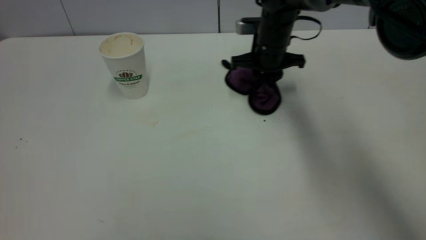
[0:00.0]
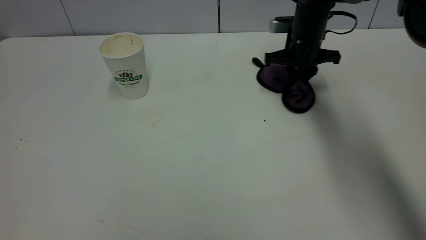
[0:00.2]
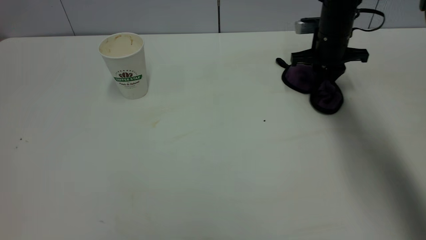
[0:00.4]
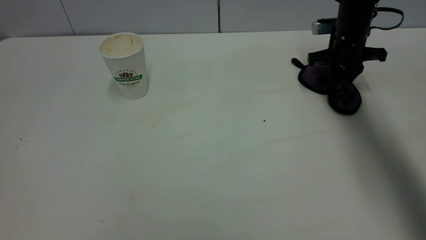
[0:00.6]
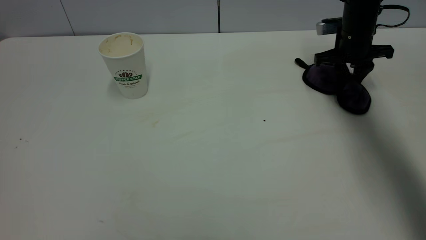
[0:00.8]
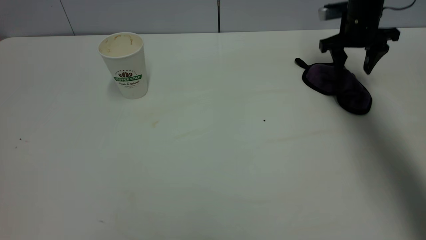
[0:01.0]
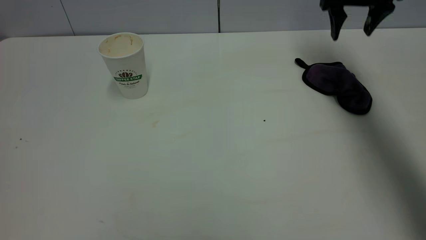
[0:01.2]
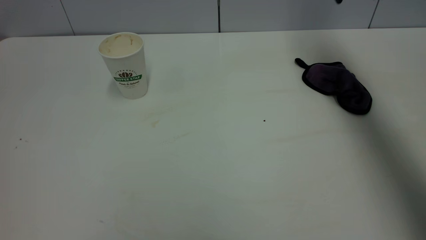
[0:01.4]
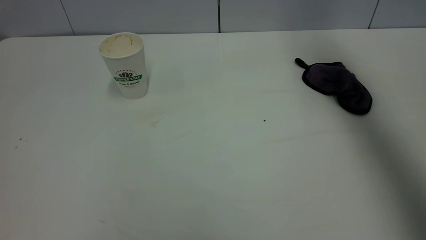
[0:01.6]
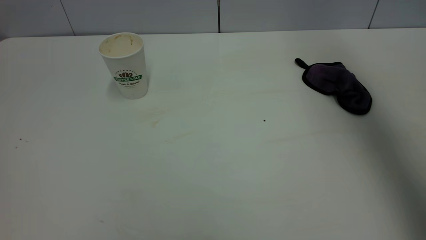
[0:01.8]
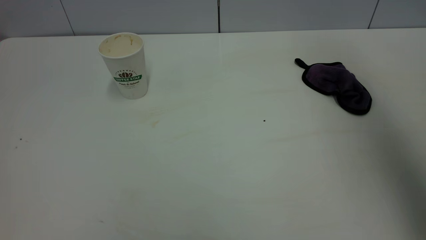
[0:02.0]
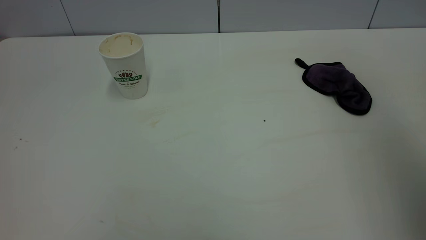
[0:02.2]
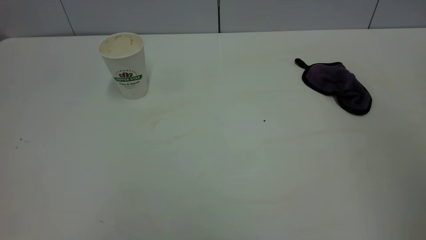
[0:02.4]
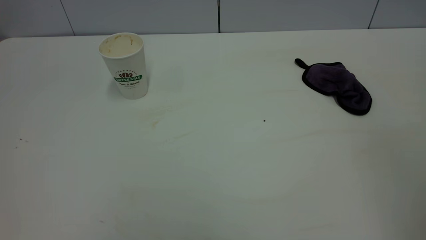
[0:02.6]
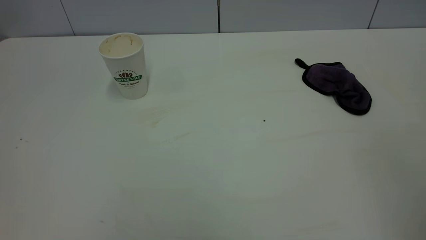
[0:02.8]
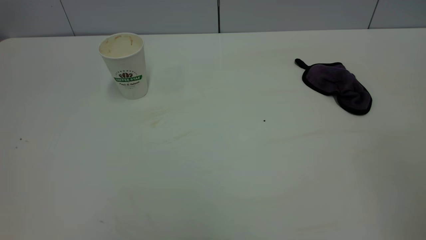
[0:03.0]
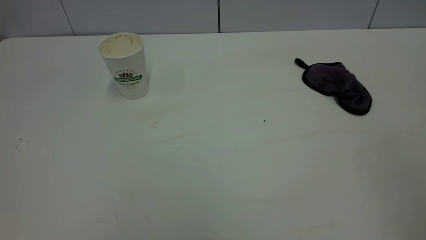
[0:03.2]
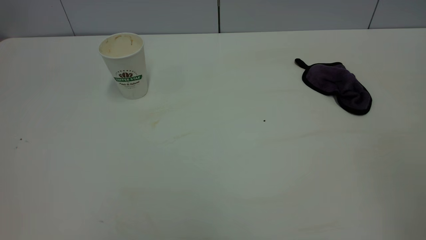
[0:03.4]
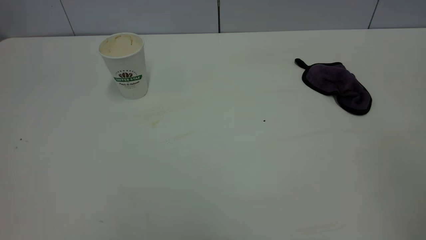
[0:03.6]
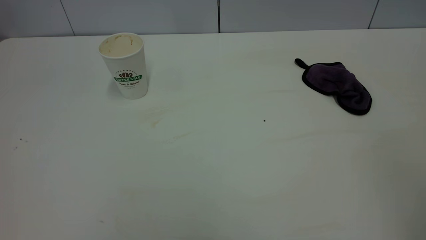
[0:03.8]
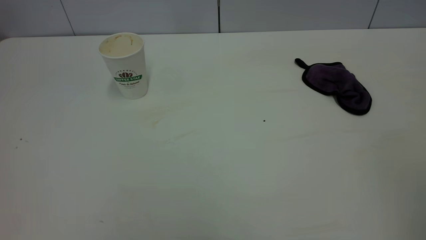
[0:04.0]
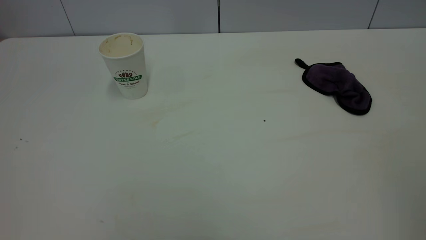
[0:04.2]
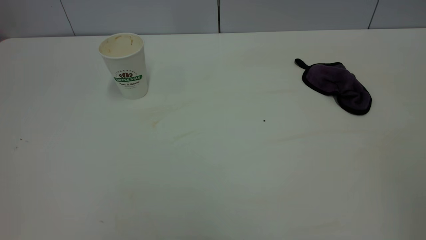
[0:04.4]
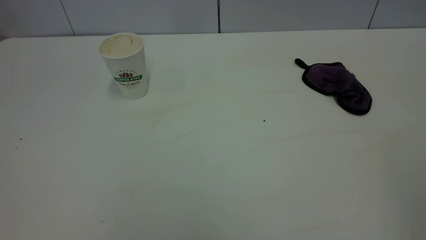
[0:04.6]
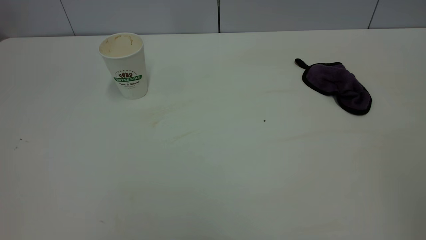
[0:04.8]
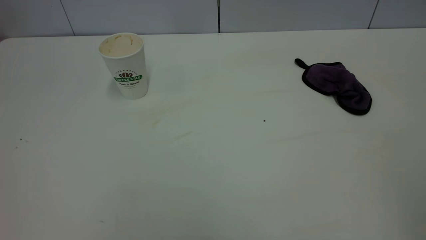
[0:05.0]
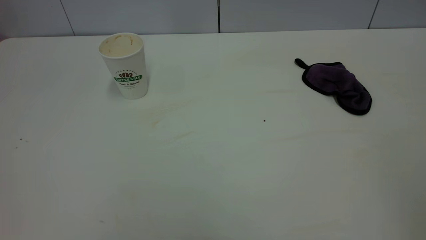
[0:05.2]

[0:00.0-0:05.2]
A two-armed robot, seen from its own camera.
Task of the whole recording: the left gripper pick up the fallen cup and place it upright, the right gripper grasp the purple rag and wipe the tea stain on the table, the right gripper put the purple rag back in its original position.
0:00.0 to 0:01.8: The right gripper goes some 40 cm upward and backward, and opens its fingers.
0:01.8 to 0:03.4: The right gripper shifts roughly 35 cm backward.
